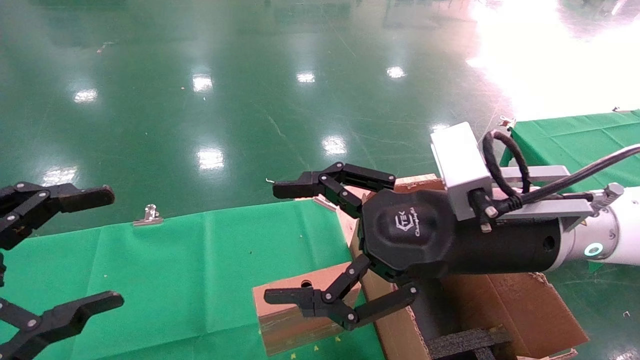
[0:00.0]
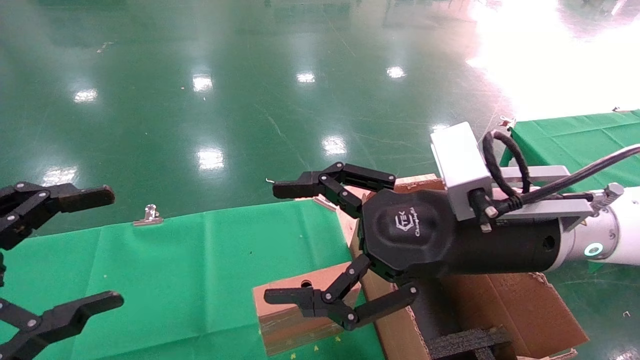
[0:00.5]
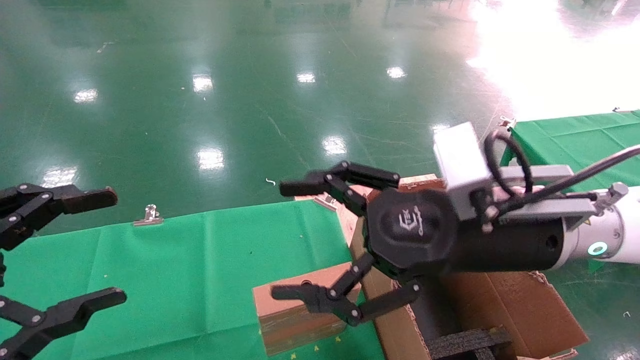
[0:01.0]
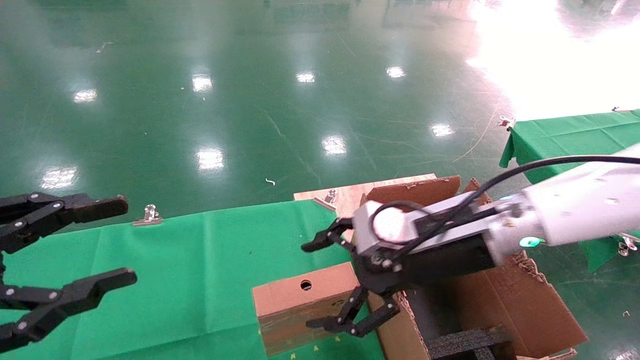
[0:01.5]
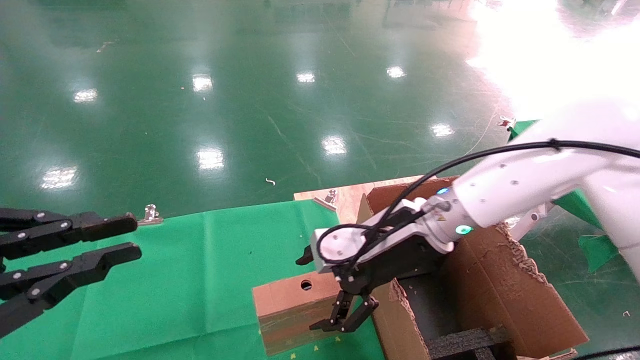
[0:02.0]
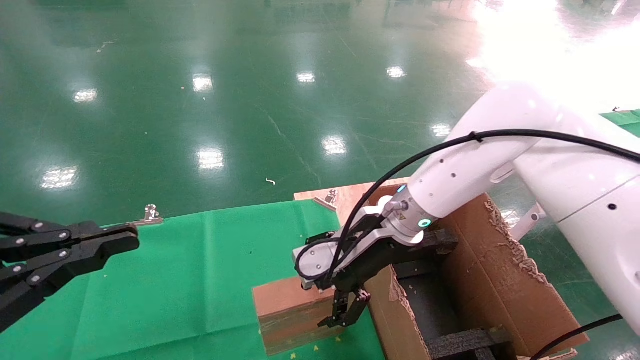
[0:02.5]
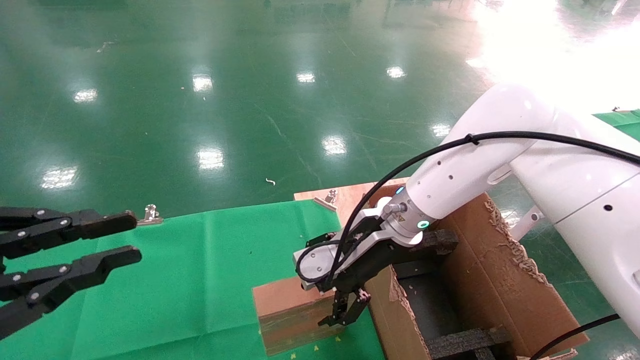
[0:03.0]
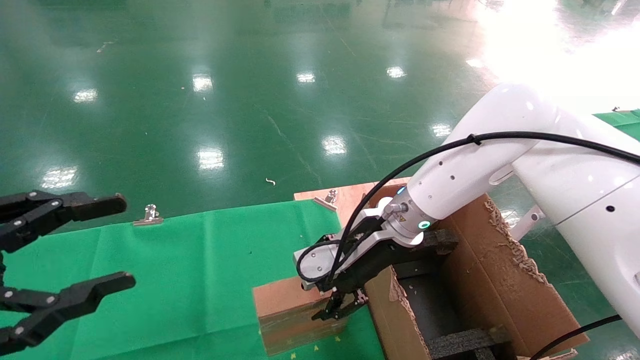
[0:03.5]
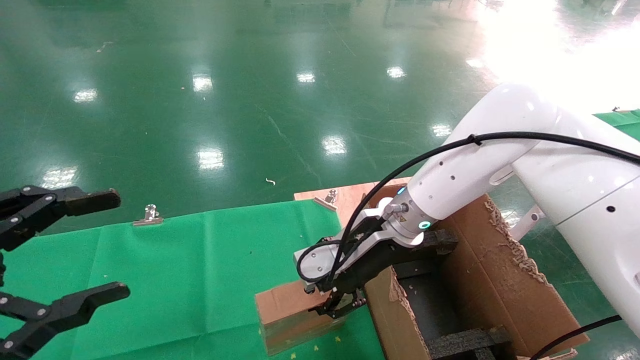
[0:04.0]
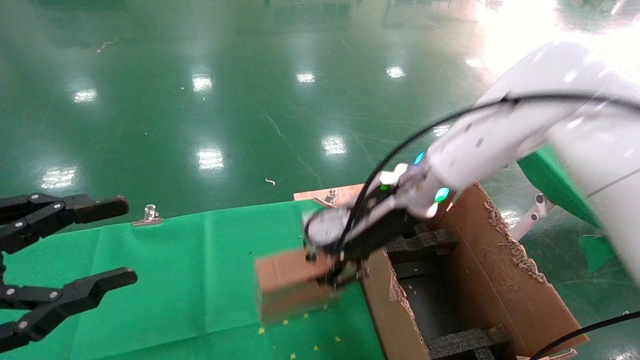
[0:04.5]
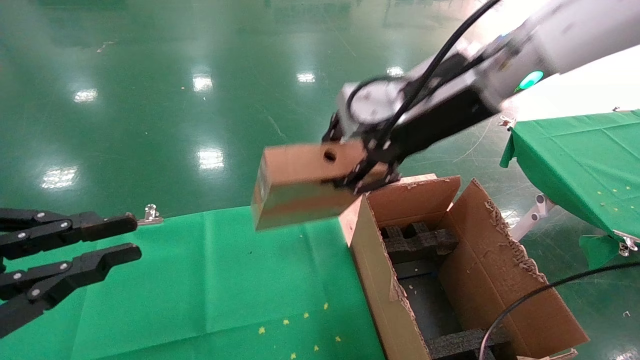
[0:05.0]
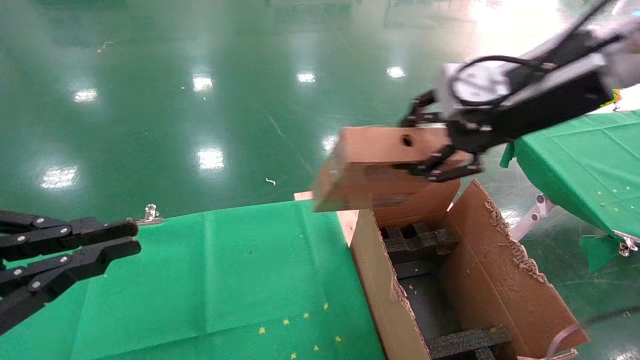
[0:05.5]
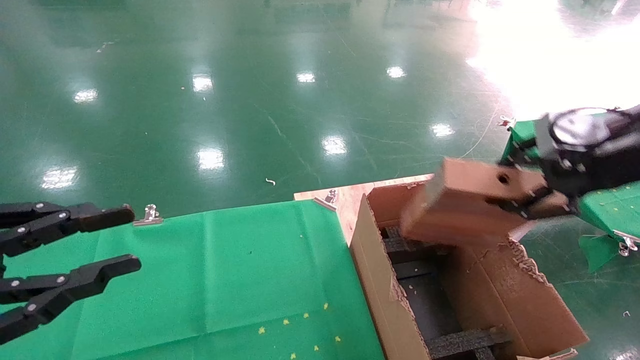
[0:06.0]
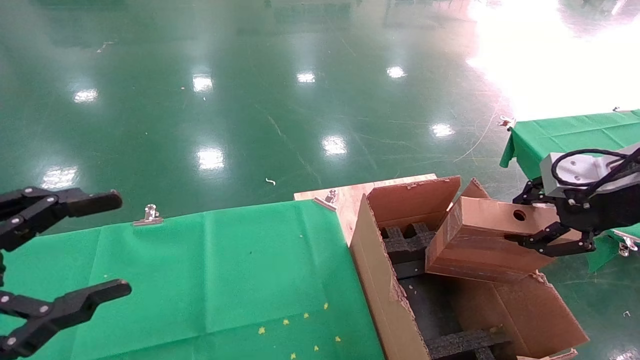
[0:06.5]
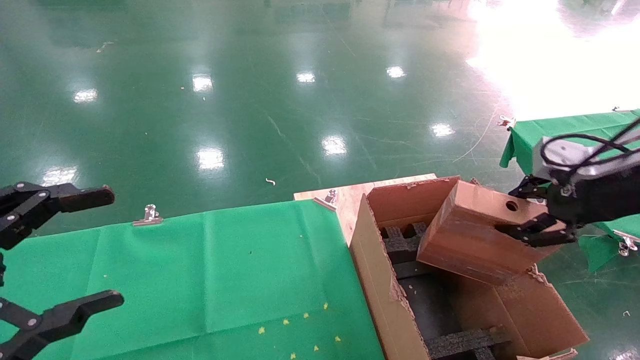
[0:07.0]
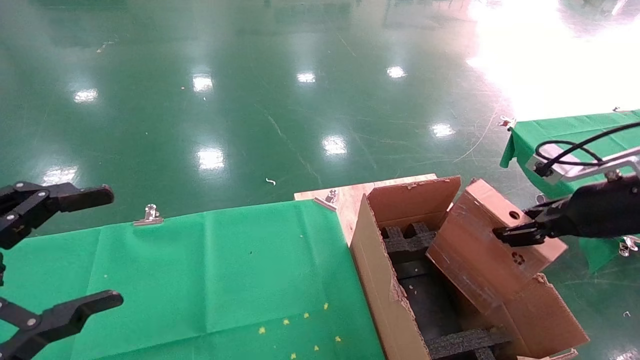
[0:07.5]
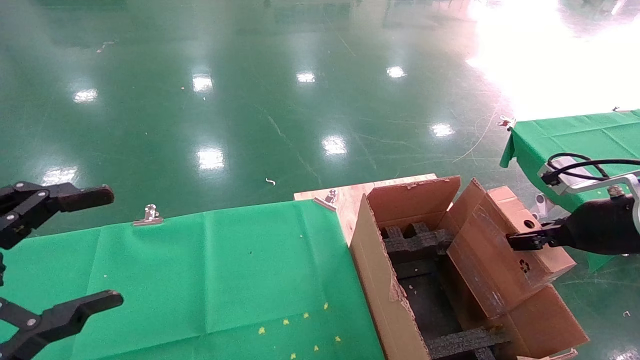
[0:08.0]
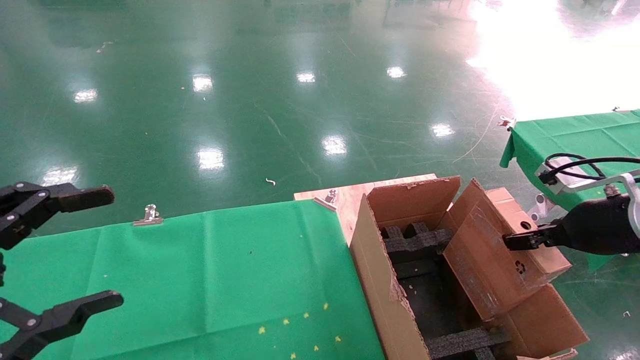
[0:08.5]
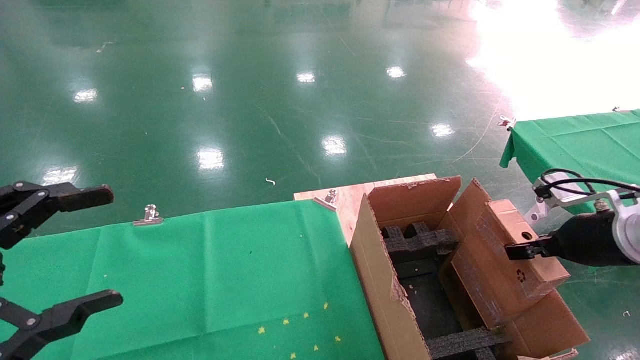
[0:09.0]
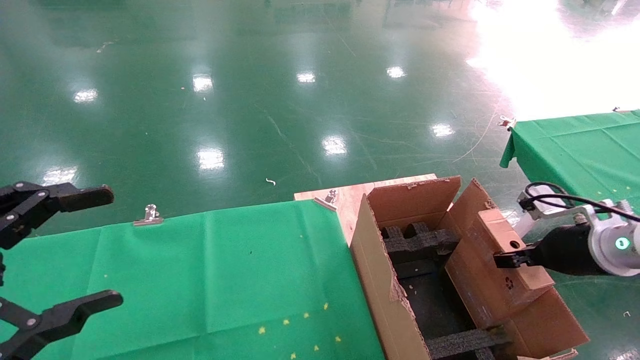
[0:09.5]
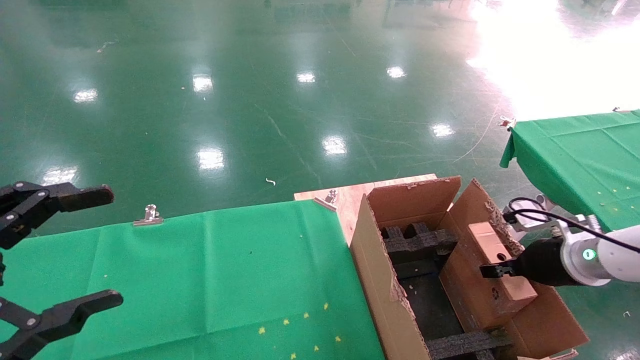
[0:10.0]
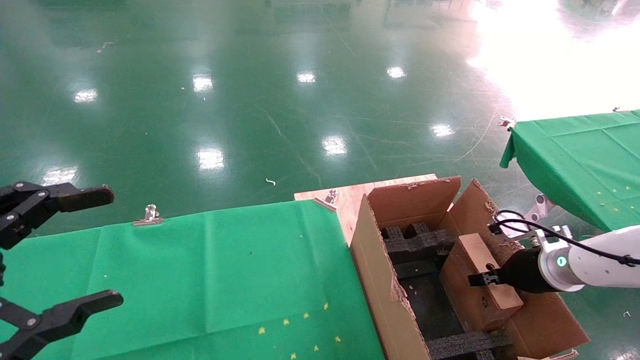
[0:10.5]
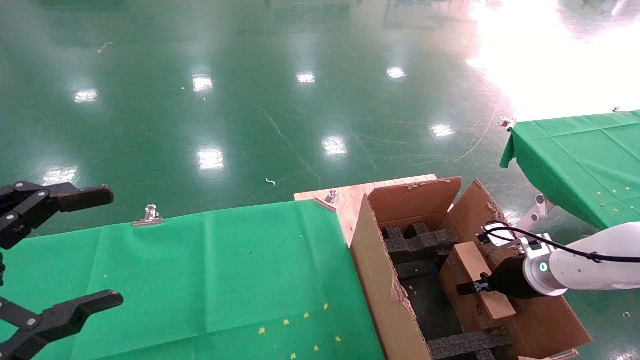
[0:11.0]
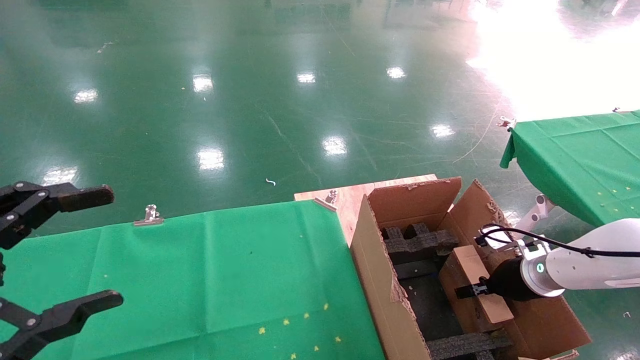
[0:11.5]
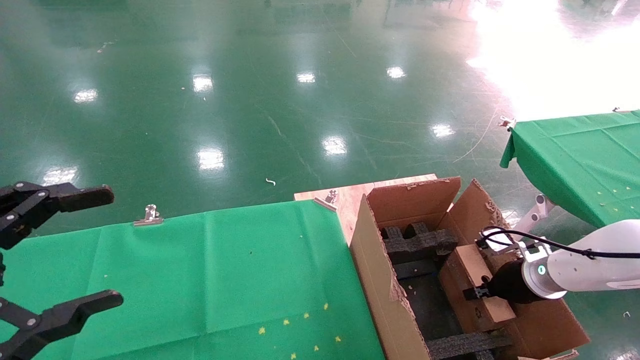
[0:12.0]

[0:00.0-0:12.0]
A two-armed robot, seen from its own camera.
Task of the whole recording: using a robotic arm to pick up a cardboard box and palace it the carton.
Step, 0:01.5 to 0:03.5: Pick up the mouse and the power cord paper box.
0:00.0 to 0:02.0: The left gripper closes up, while the right gripper shifts roughly 10 cm forward and downward.
0:02.0 to 0:04.0: The left gripper opens its fingers. Meanwhile the right gripper closes up.
0:04.0 to 0:06.0: The right gripper moves to the right, upward and backward, about 30 cm. Meanwhile the left gripper closes.
0:06.0 to 0:08.0: The right gripper shifts roughly 10 cm downward. The left gripper opens its fingers.
0:08.0 to 0:10.0: The right gripper moves downward and forward, about 10 cm.
0:10.0 to 0:12.0: The right gripper travels downward and forward by about 10 cm.

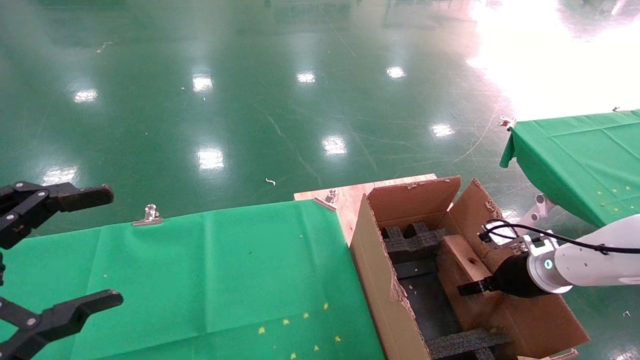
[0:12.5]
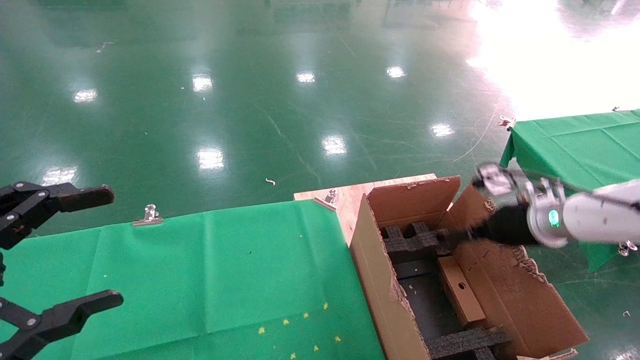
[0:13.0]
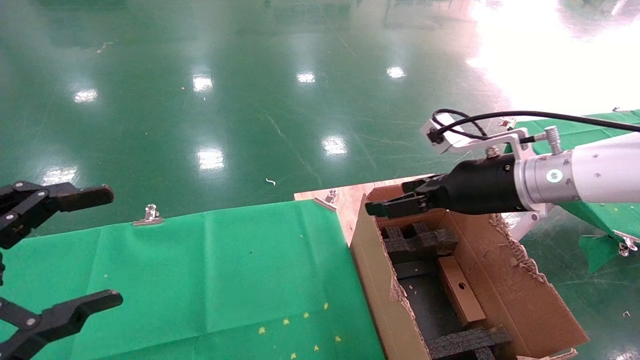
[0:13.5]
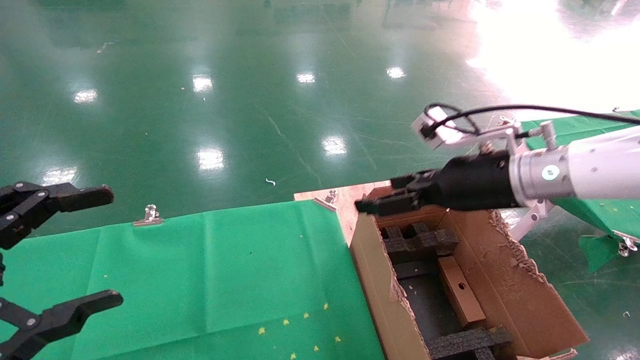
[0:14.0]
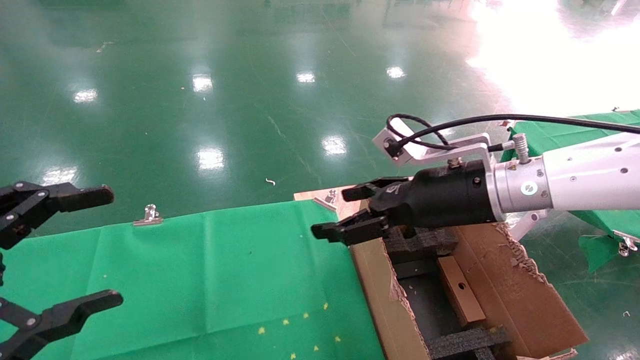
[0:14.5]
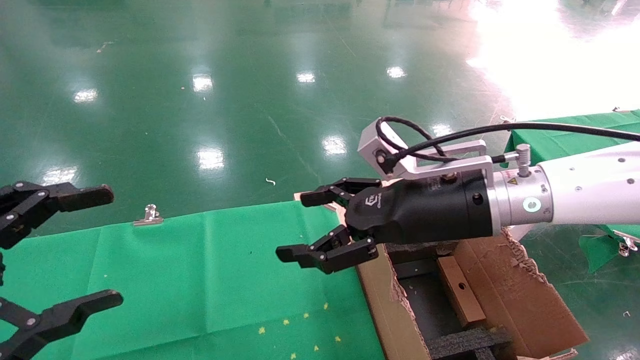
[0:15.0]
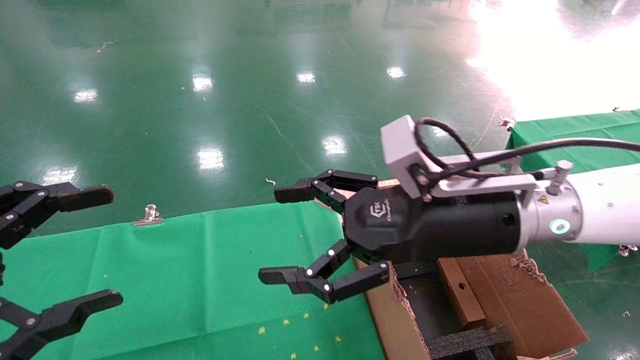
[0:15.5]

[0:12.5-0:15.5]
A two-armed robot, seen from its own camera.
Task of the whole recording: using a robotic arm to pick up a cardboard box and palace it the carton.
0:12.5 to 0:14.0: The right gripper travels upward and to the left by about 25 cm, and opens its fingers.
0:14.0 to 0:15.5: The right gripper travels to the left and backward by approximately 10 cm.
